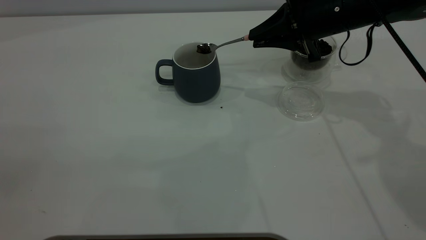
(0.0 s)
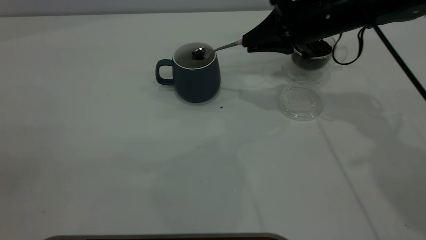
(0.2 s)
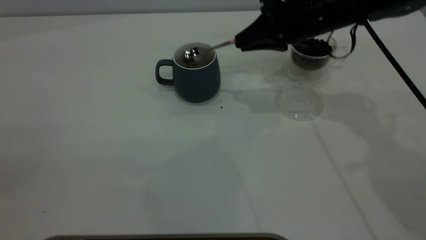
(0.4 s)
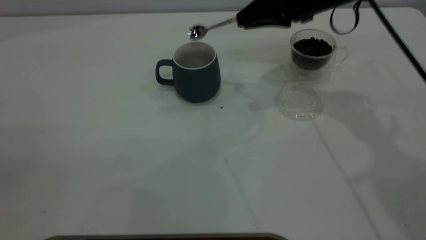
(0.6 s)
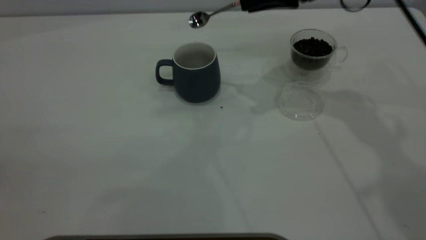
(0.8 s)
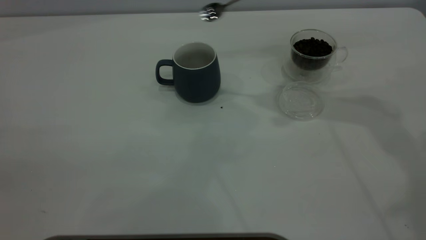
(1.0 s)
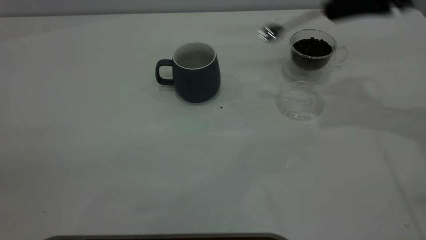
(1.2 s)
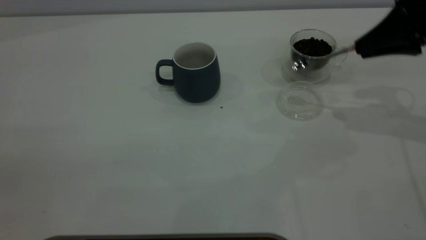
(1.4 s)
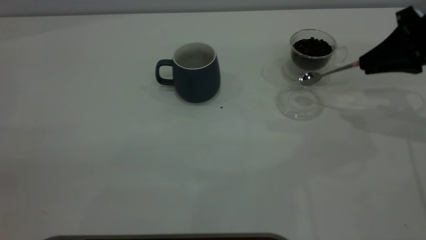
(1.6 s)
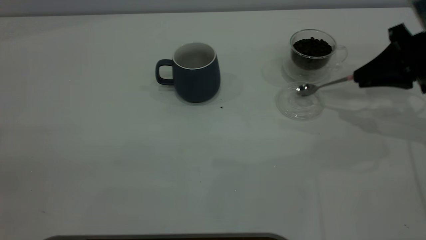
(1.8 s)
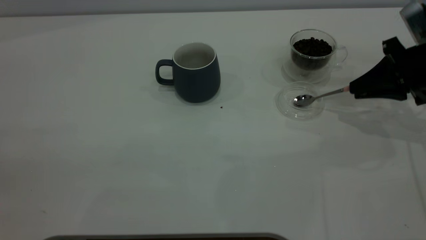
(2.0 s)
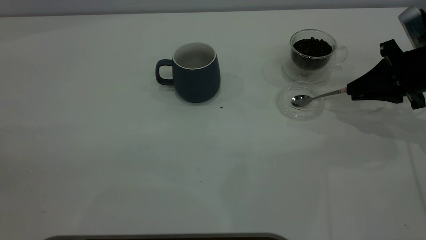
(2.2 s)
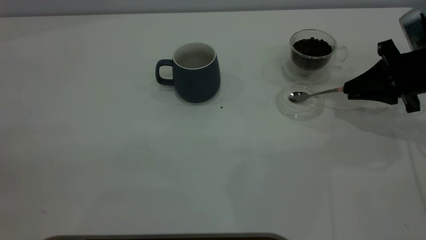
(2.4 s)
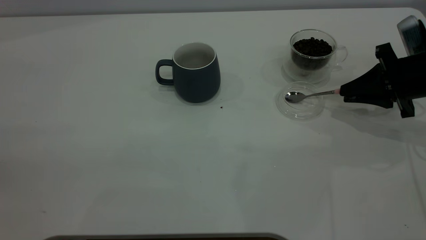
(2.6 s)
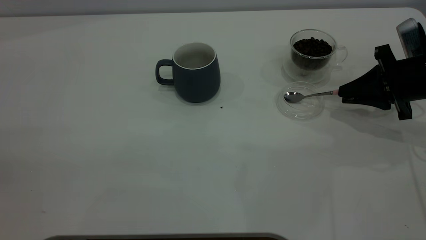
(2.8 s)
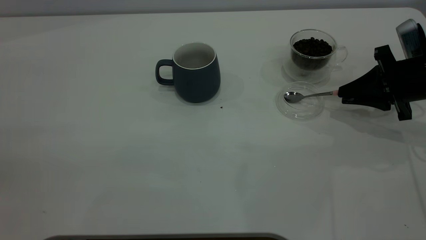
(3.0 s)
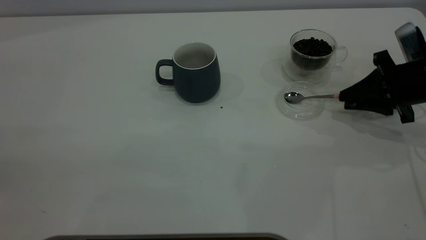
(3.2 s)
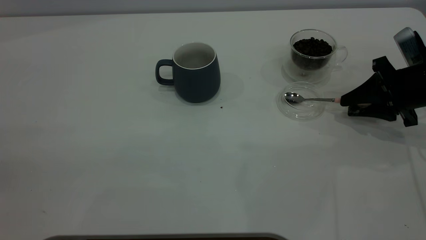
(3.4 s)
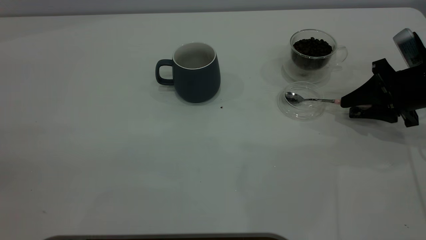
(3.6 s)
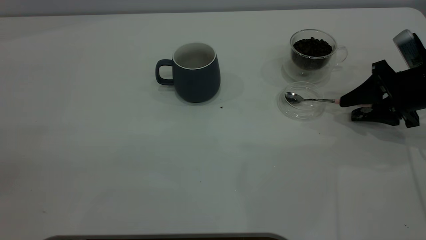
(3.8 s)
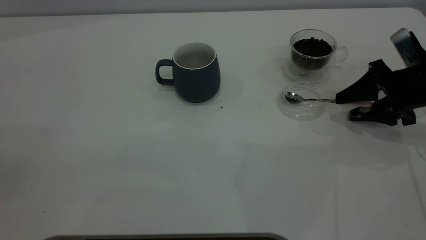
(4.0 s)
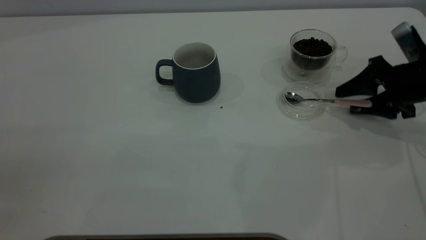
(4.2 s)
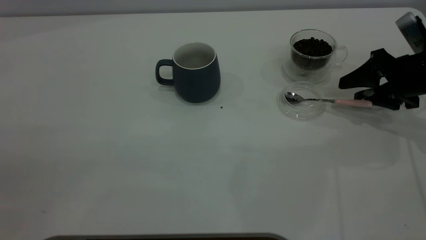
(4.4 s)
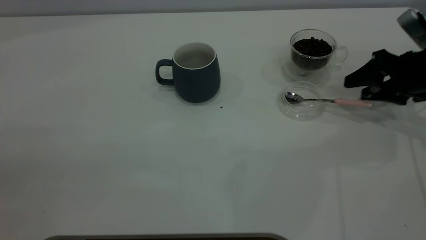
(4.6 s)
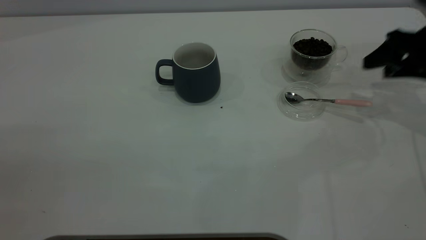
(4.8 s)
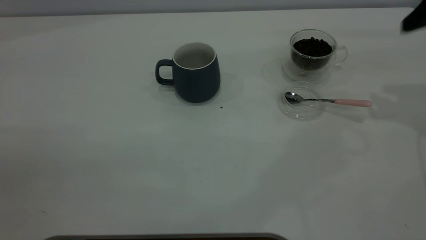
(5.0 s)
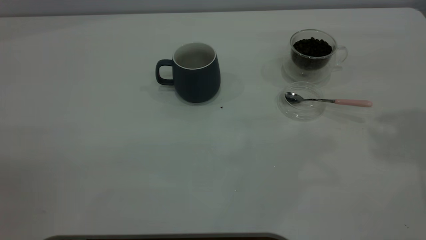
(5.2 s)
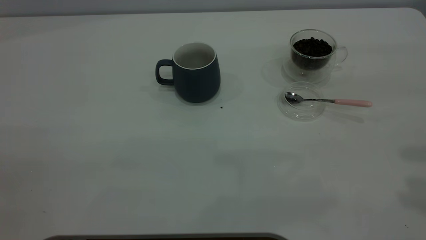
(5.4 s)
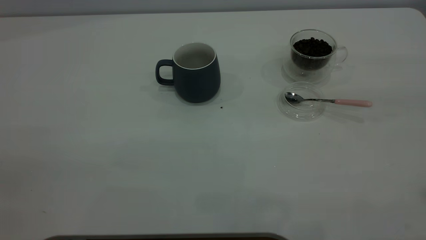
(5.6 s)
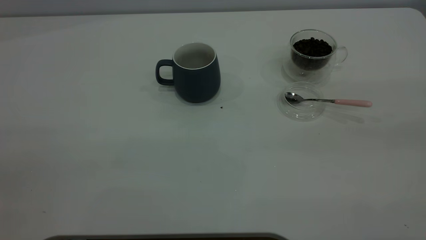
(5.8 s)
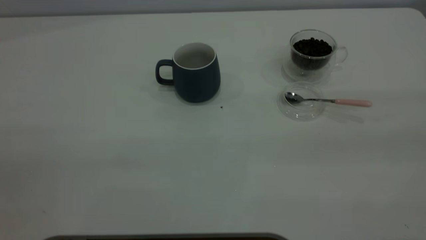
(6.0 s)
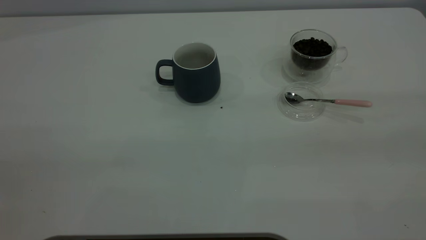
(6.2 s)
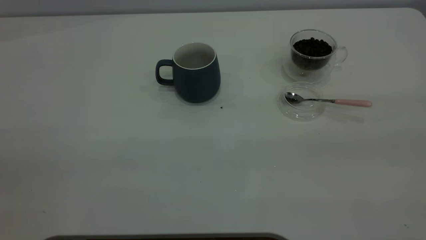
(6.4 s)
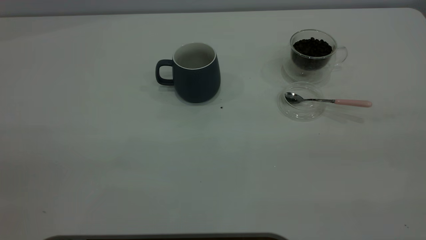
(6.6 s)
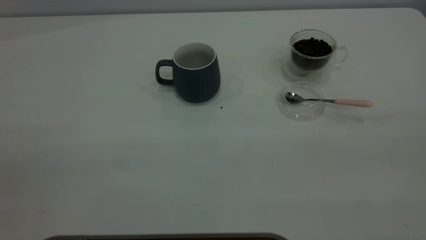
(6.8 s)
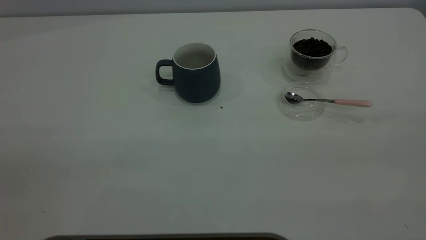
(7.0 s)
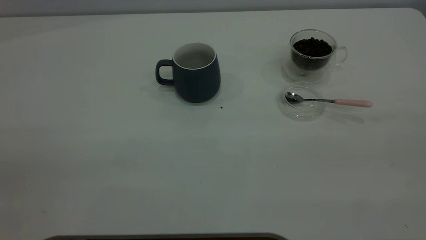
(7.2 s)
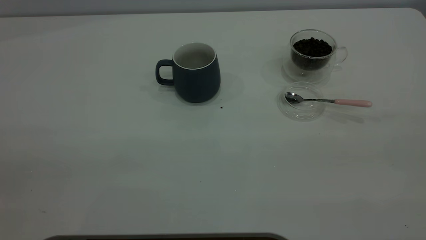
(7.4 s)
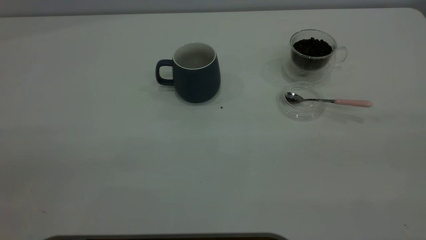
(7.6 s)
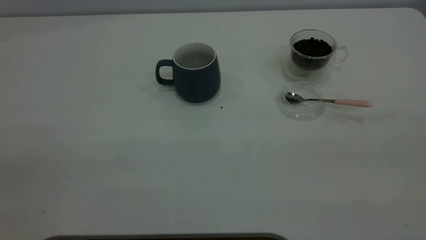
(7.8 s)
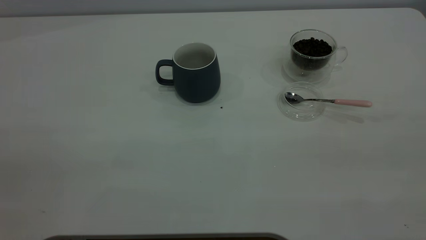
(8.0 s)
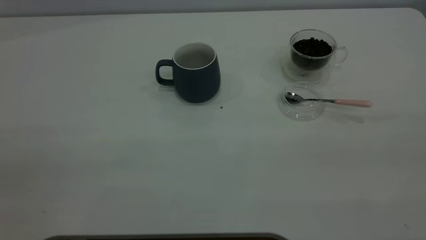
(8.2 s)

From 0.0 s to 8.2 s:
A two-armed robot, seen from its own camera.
Task of the whole recording: the left gripper place the grey cup in the center of the table, the right gripper take the pink spoon from the cup lid and scoop out the coffee beans from the coffee cup and put them into the grey cup, the right gripper put the spoon back into the cup lid.
Step, from 0.8 s to 4.4 s: Place the spoon back in its original place.
From 0.0 s to 1.6 s: The right gripper shifts approximately 15 cm to the right and backward.
From 1.6 s to 3.2 s: The right gripper moves downward, about 10 cm.
From 3.2 s to 5.0 s: The right gripper is displaced upward by roughly 15 cm, and opens its fingers.
From 6.6 s to 8.2 s: Both grippers stay put.

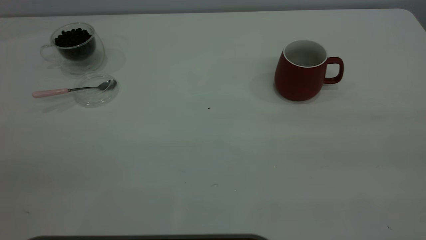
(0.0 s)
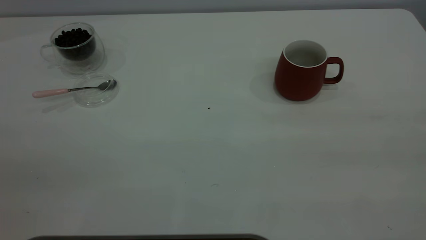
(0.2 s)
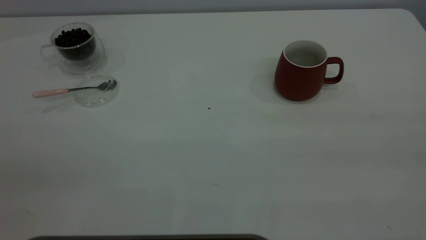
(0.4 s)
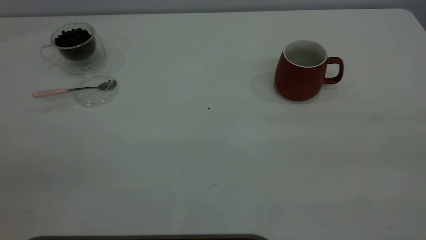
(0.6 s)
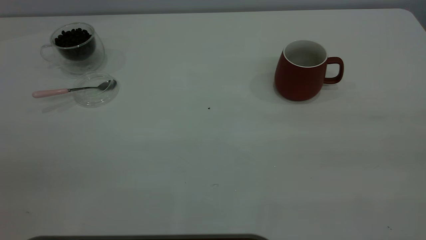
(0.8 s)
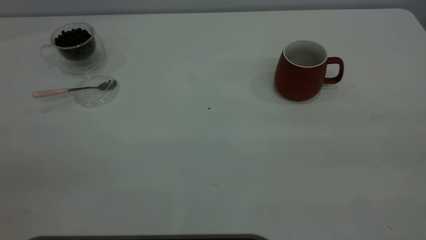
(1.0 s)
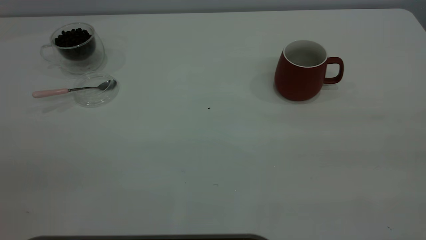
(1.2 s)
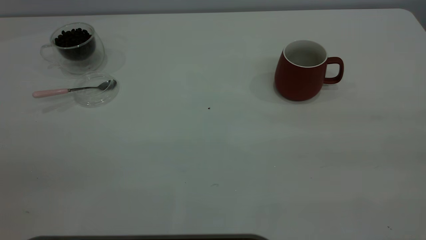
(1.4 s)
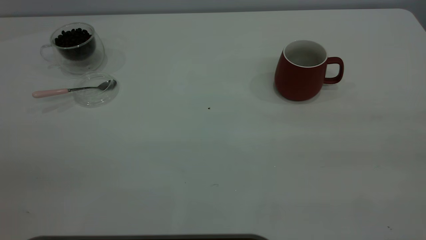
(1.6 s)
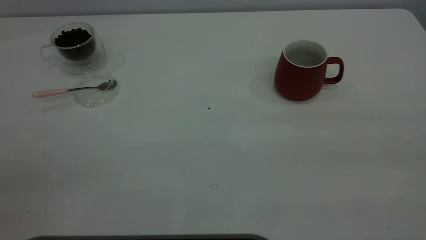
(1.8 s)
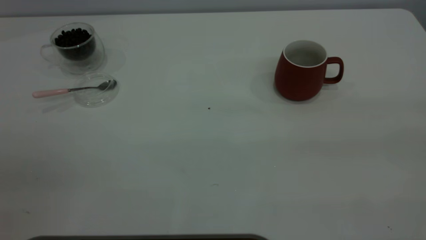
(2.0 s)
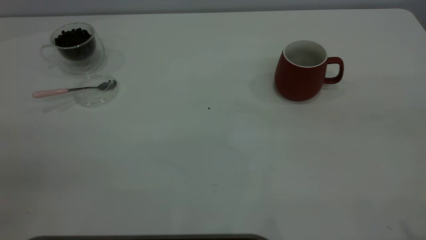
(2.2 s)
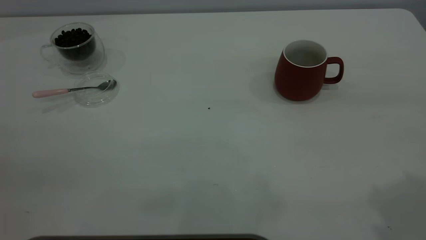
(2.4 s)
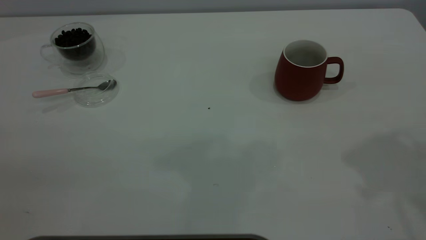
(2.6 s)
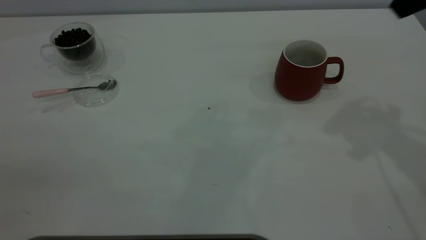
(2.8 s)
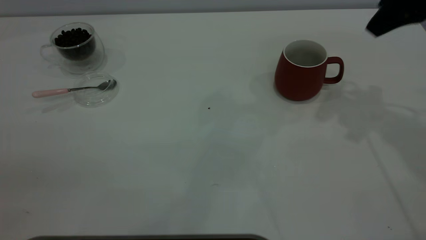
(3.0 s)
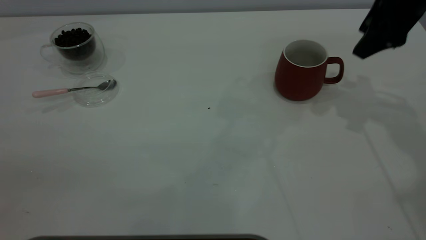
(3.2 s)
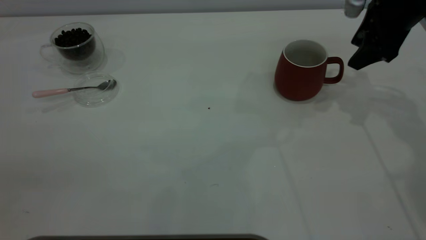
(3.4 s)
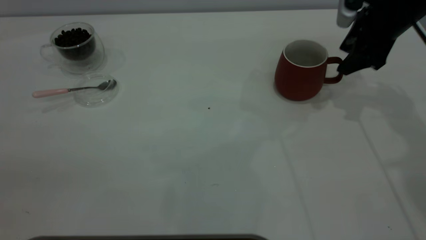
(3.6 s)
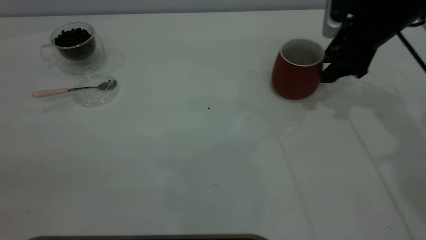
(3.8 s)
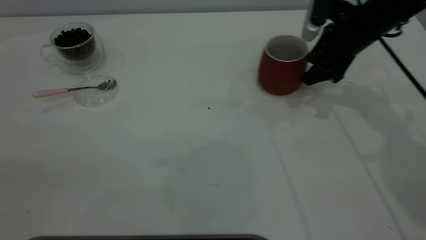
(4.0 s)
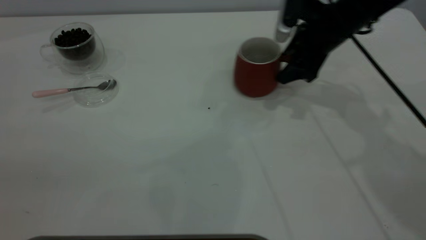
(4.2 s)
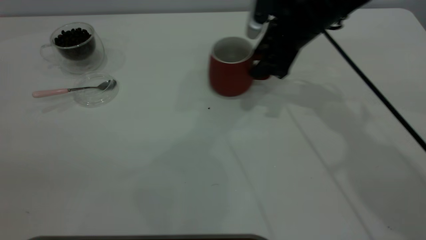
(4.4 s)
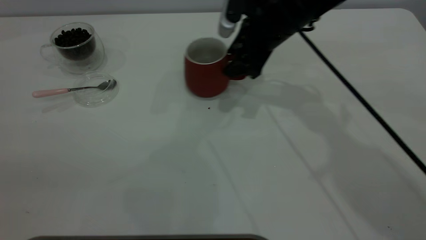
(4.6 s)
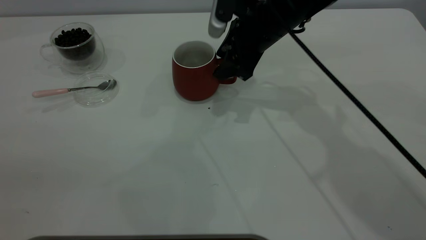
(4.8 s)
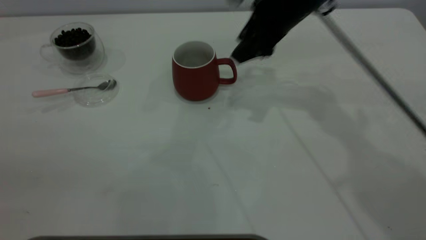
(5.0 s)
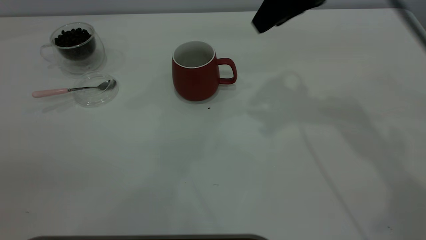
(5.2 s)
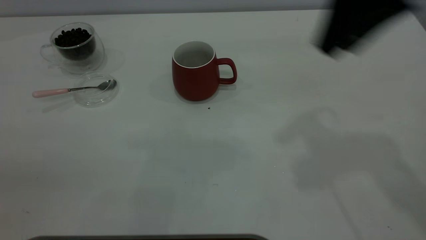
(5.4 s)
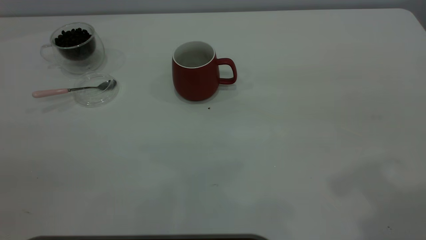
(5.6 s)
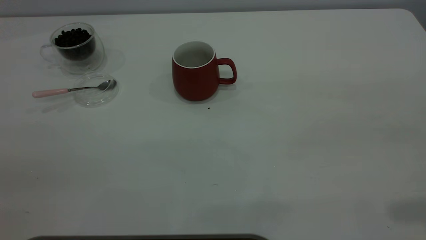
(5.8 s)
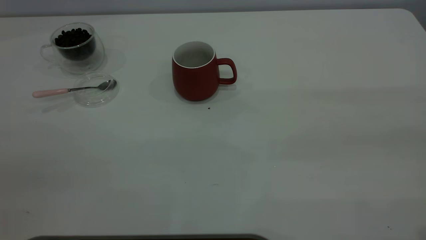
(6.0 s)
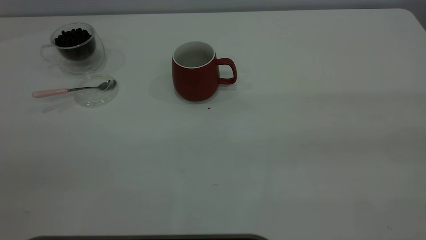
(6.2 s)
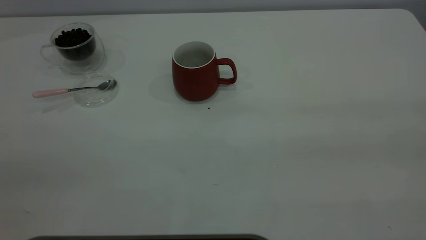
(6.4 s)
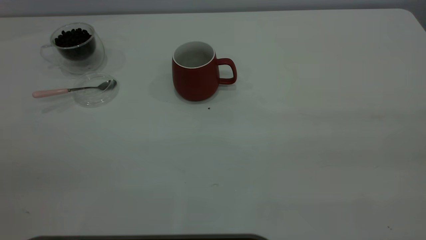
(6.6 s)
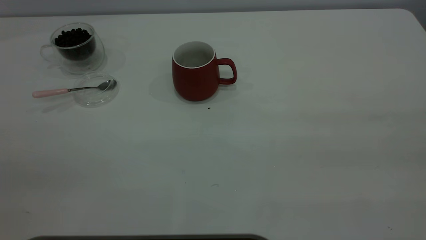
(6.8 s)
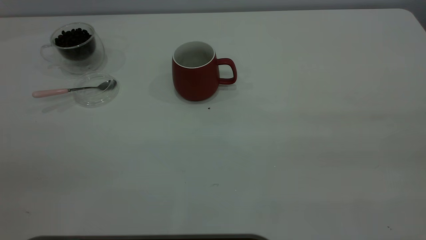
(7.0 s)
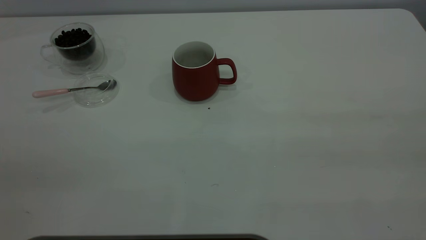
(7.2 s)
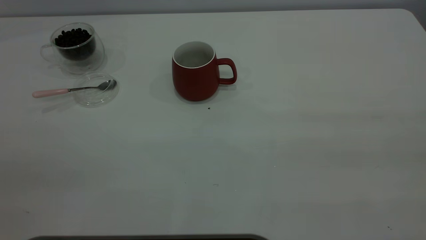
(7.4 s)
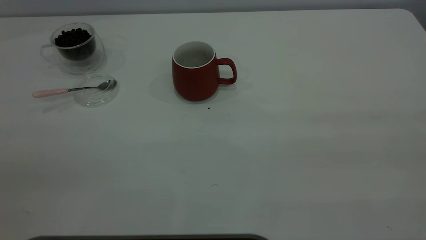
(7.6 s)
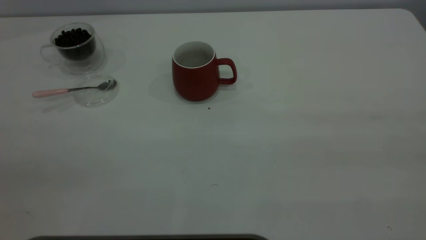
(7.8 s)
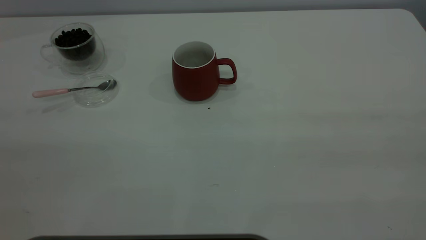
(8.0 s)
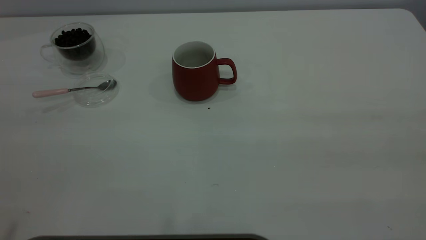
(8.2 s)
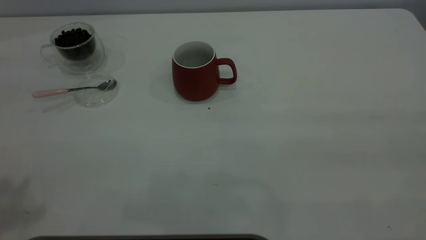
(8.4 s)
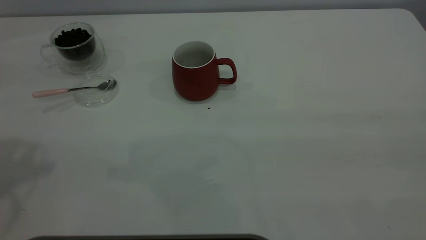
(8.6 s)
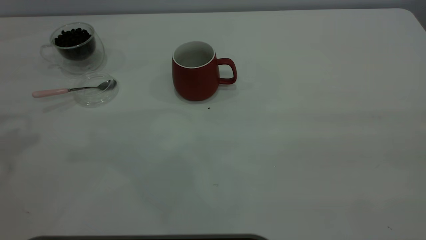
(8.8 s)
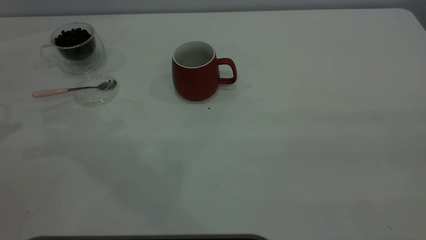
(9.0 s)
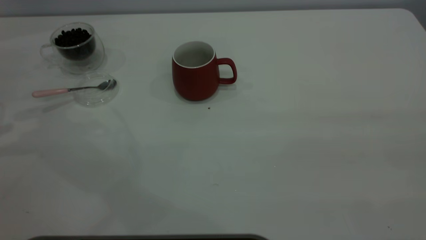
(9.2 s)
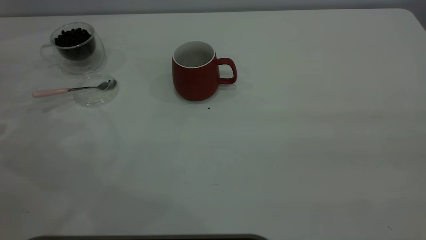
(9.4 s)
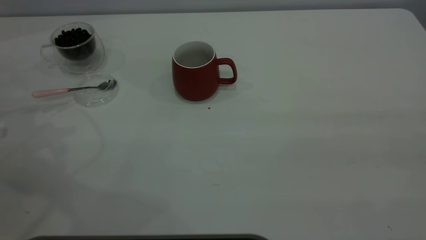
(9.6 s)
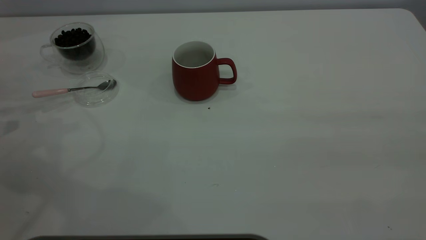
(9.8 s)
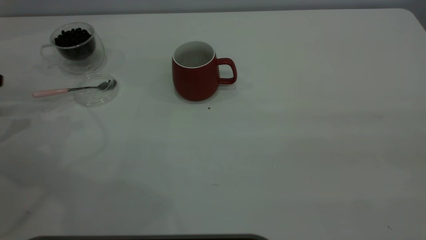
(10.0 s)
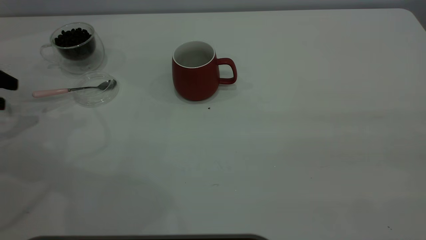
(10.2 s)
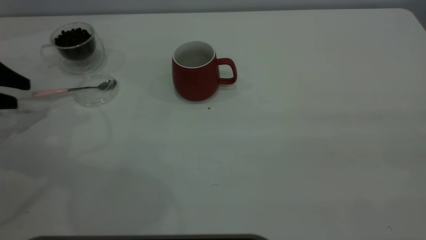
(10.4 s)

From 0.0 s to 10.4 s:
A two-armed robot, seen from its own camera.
Task of the whole recording: the right gripper place the red cup in the center of the table, the left gripper take the pink spoon from the cup lid and scoop out the coffee beans from the coffee cup and put them into the red cup, the left gripper put the spoon back into the cup lid.
Step, from 0.0 s to 5.0 s: Move the cup to the center of view.
From 0.0 s to 1.4 s: Both grippers stay about where they are.
From 1.4 s to 3.0 s: The right gripper moves forward, roughly 35 cm.
From 3.0 s to 4.4 s: The right gripper travels to the left, downward and forward by some 20 cm.
From 4.4 s to 6.0 s: The right gripper travels backward, upward and to the right by about 40 cm.
From 9.0 s to 10.4 s: The left gripper is displaced downward by some 15 cm, and opens up.